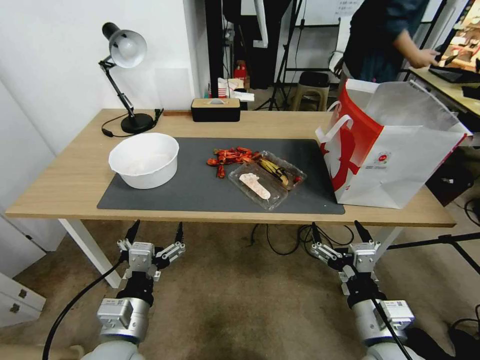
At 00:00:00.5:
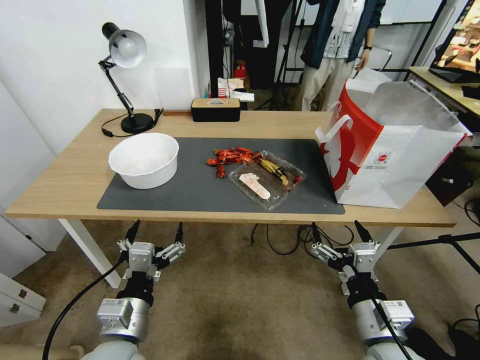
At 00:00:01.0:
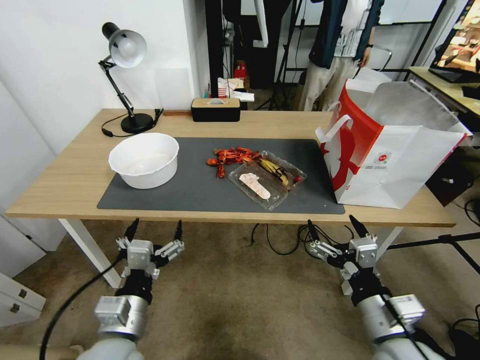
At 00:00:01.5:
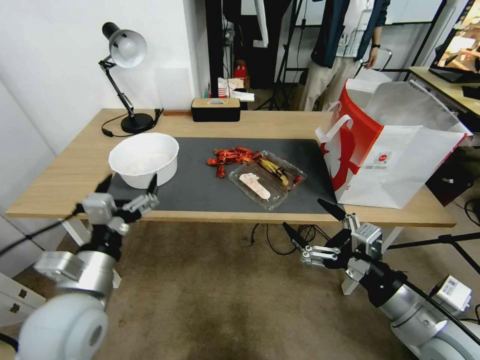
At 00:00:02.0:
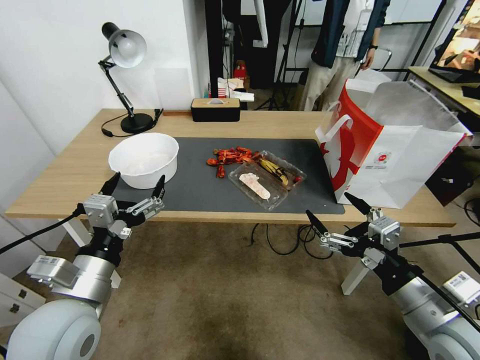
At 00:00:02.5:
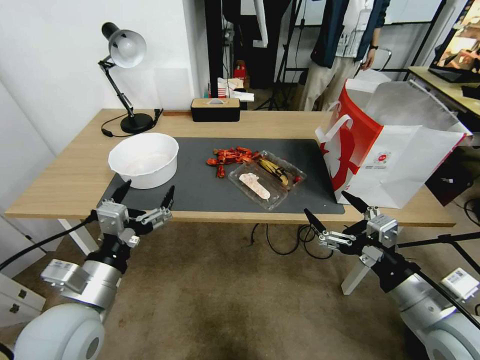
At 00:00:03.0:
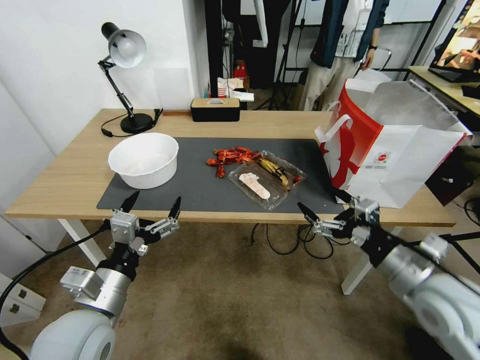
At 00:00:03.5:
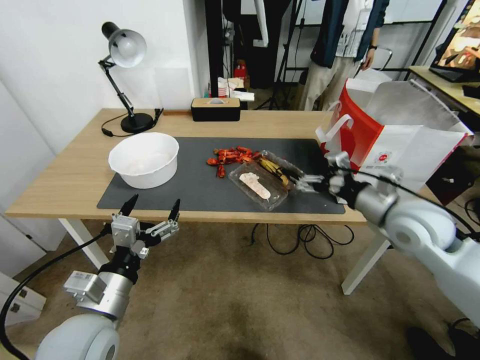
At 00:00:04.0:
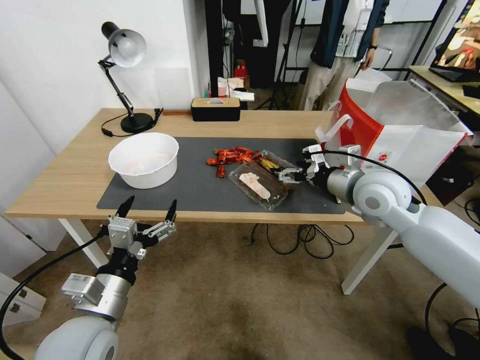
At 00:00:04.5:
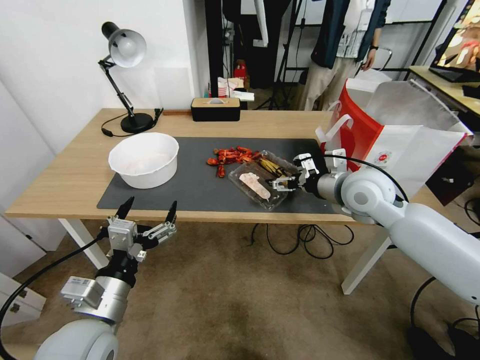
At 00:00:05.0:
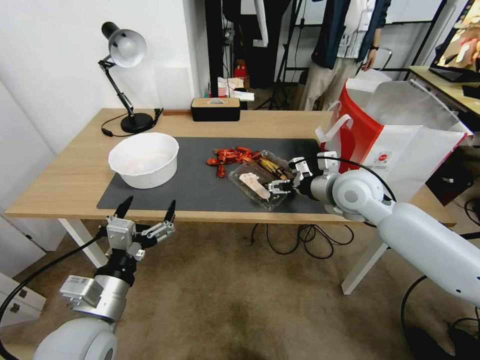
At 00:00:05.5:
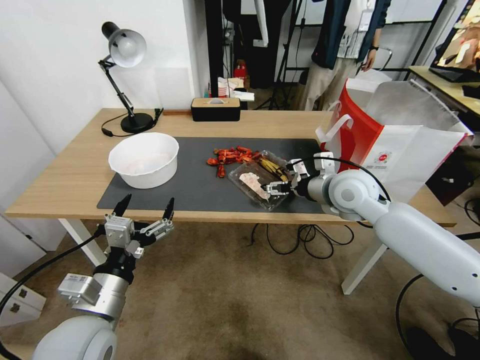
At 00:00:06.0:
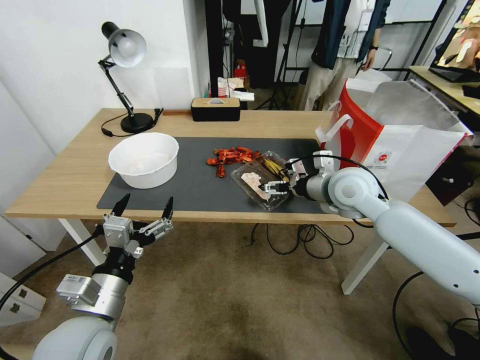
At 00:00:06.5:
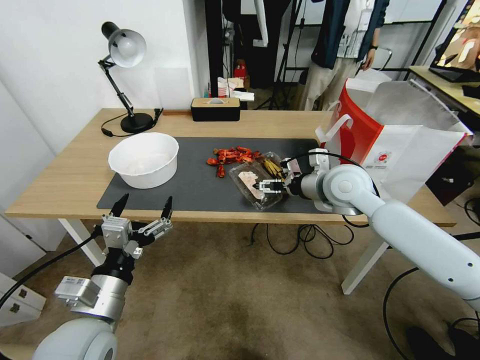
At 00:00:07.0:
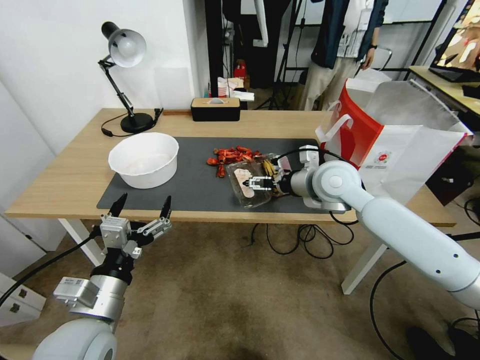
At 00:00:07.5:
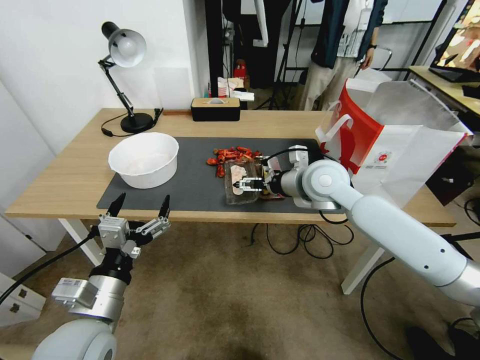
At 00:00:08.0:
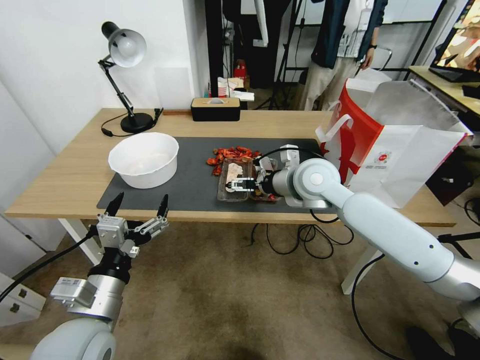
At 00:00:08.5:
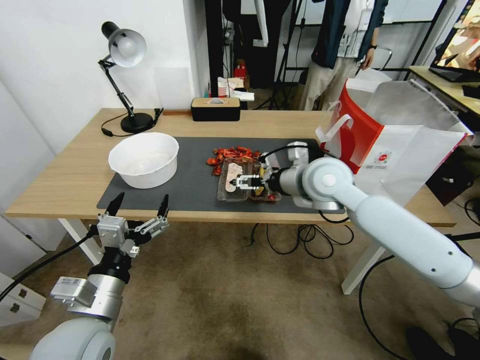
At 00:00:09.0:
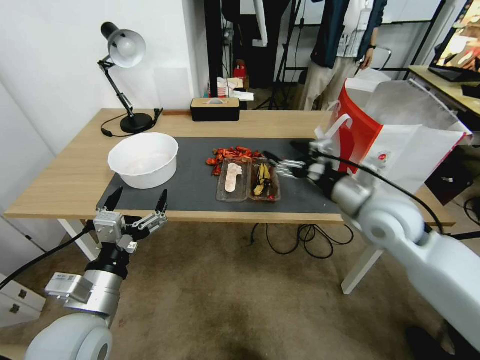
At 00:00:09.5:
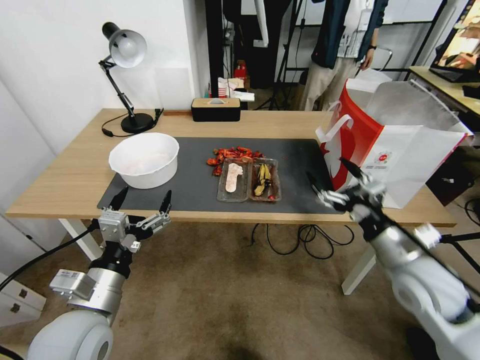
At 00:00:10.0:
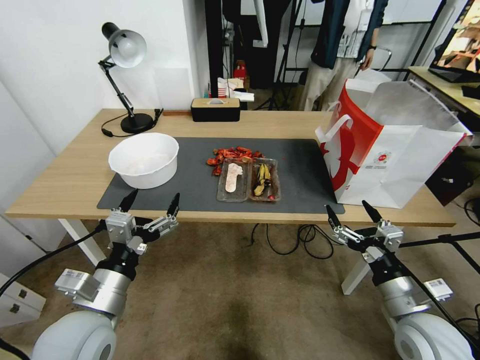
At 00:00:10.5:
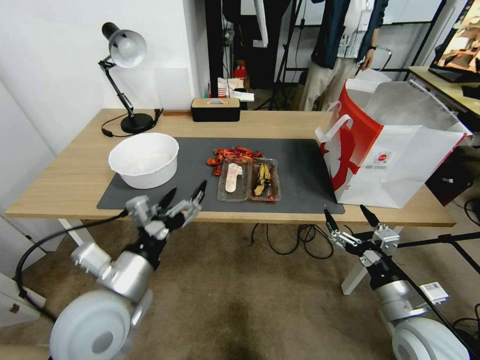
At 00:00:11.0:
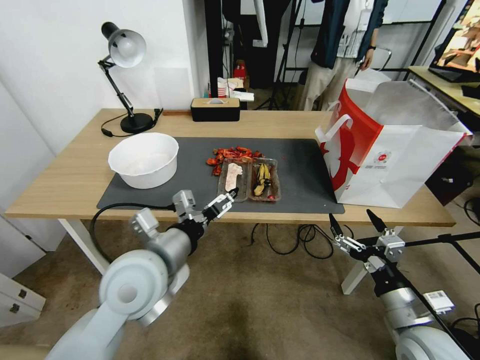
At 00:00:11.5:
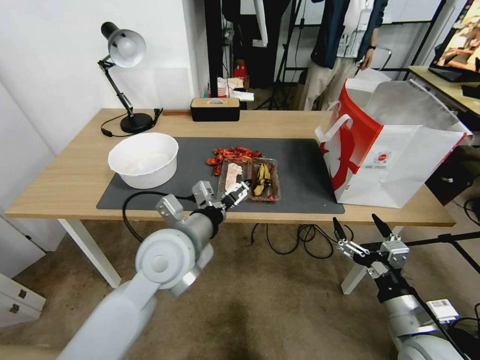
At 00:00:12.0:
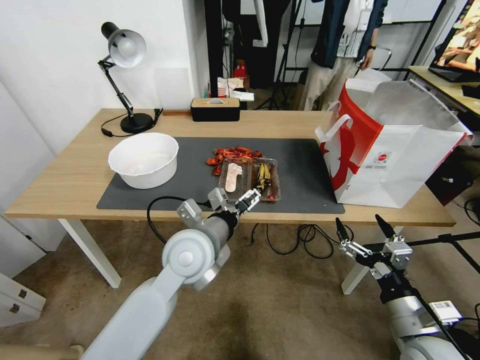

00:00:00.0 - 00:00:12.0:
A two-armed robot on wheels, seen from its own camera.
00:00:02.0 - 00:00:04.0: The right gripper heads forward, covering some 25 cm.
00:00:04.0 - 00:00:06.0: The right gripper moves roughly 5 cm.
00:00:06.0 - 00:00:08.0: The right gripper travels to the left by some 10 cm.
00:00:08.0 - 00:00:10.0: The right gripper shifts approximately 35 cm backward, to the right and downward.
00:00:10.0 - 00:00:12.0: The left gripper shifts roughly 20 cm to the right and forward.

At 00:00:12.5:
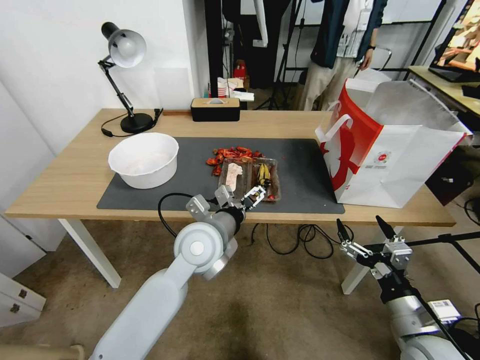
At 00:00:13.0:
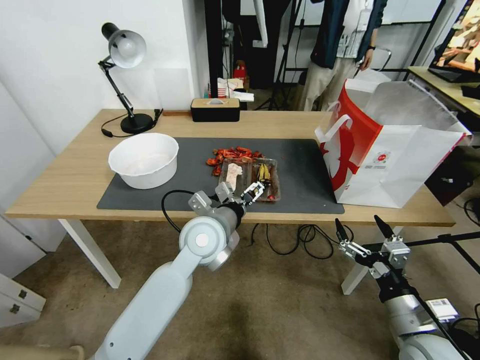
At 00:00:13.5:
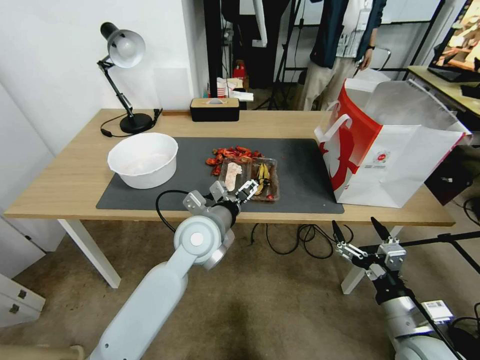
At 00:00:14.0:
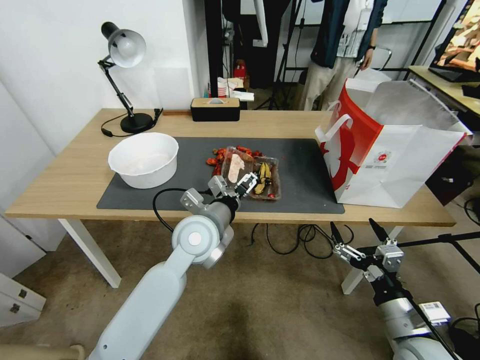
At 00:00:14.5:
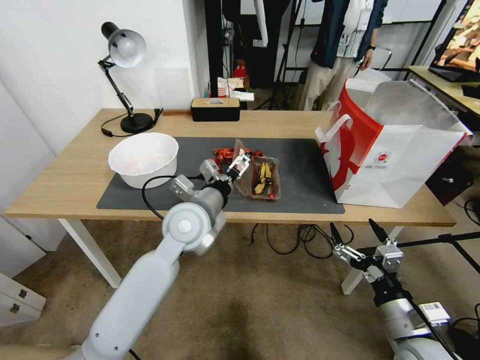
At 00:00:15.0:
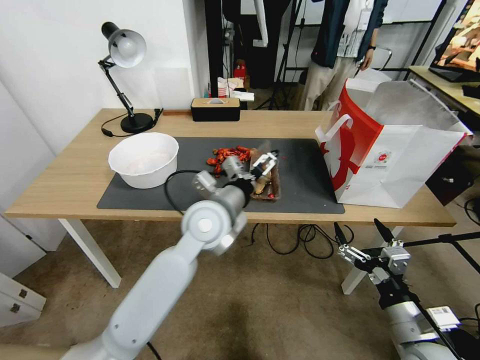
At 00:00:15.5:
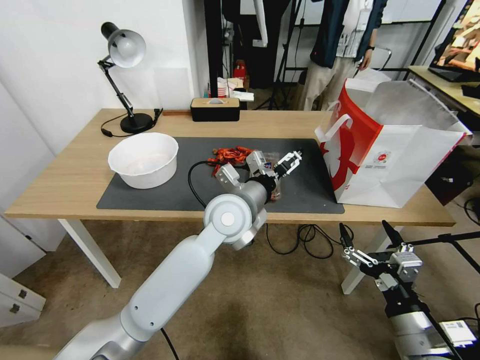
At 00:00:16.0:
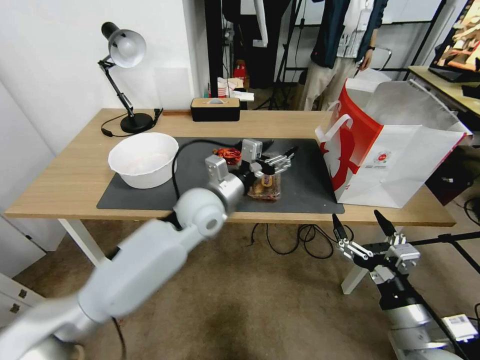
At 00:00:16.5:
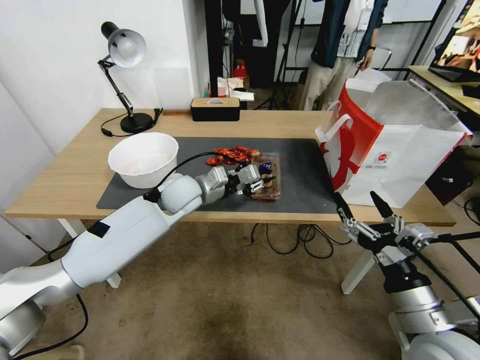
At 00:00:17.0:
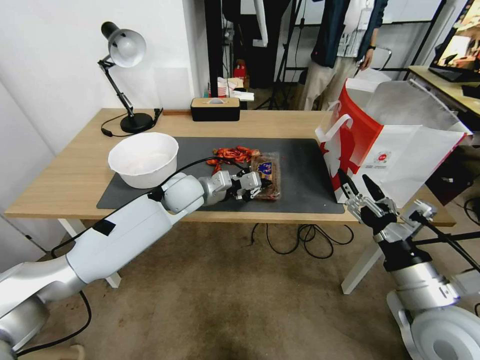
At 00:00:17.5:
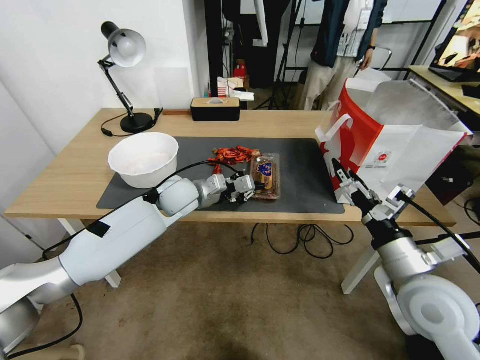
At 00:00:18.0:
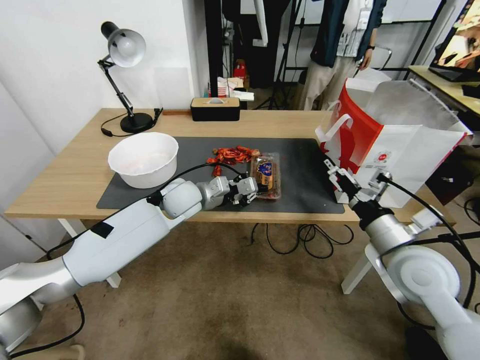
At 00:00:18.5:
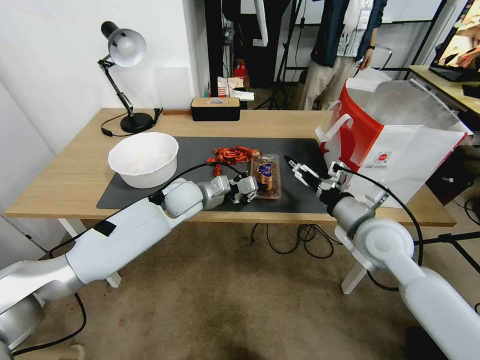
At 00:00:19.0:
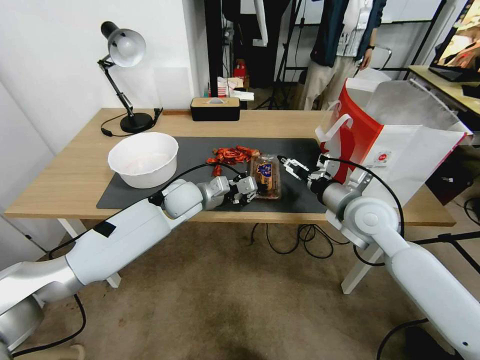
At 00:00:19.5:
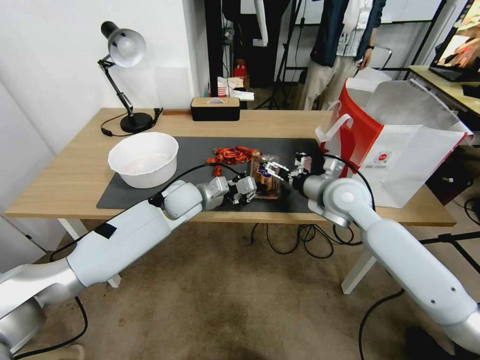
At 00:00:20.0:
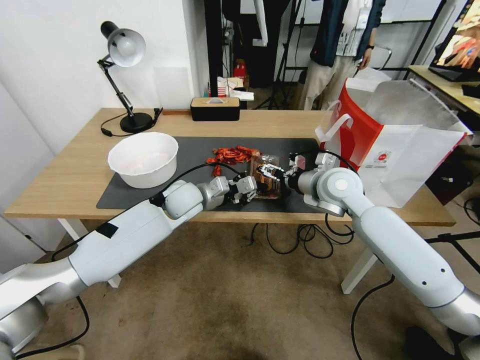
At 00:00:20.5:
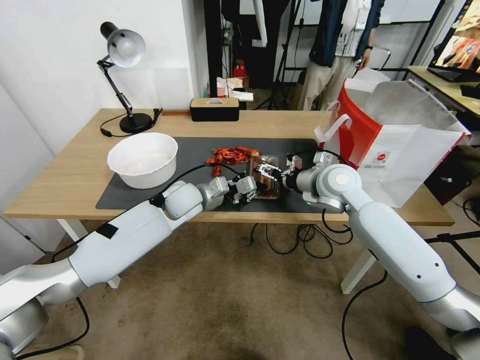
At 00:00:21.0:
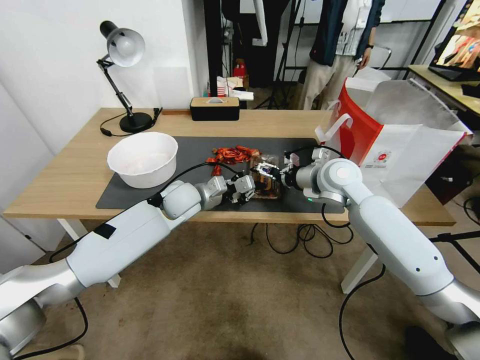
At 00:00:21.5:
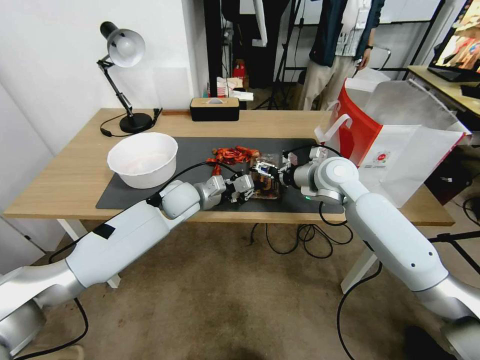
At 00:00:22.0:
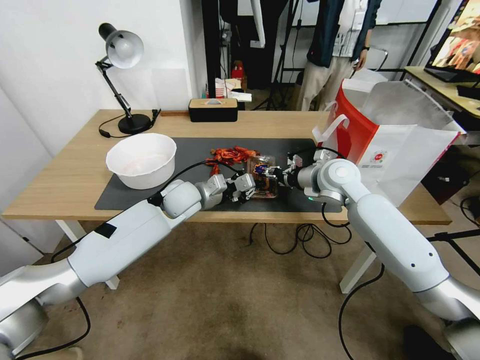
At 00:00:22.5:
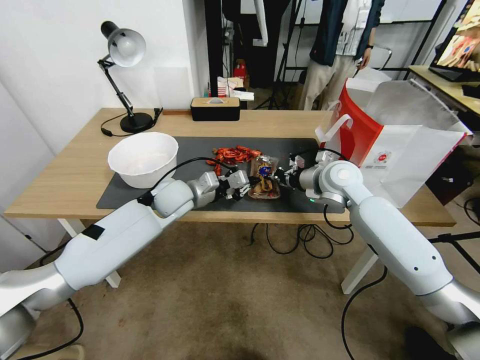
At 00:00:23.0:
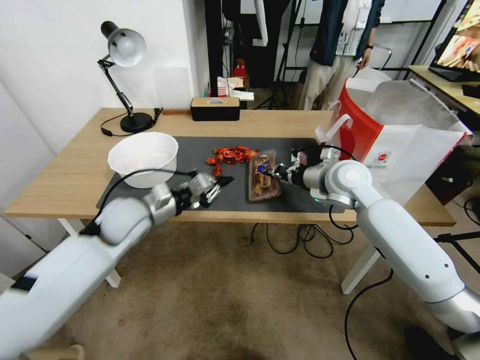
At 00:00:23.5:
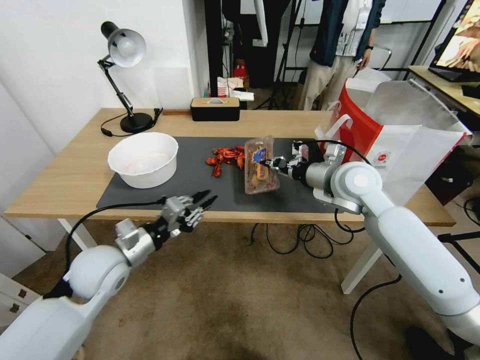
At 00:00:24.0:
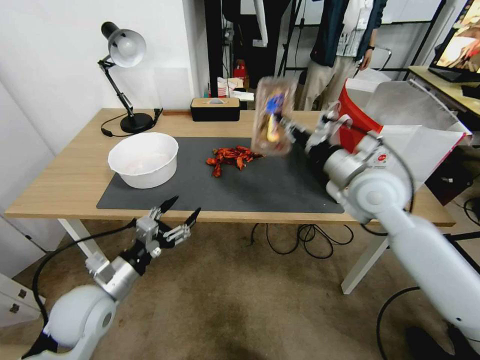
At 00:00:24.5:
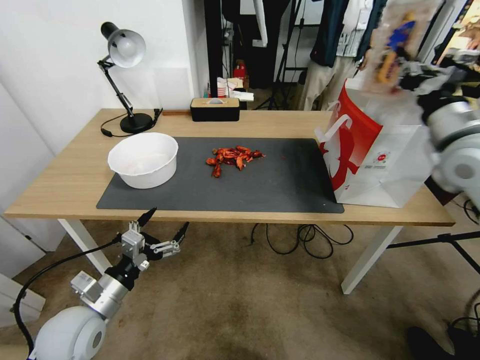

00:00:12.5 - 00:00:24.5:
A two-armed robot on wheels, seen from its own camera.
00:00:12.5 - 00:00:14.5: The grippers make only small movements.
00:00:14.5 - 00:00:16.5: The left gripper shifts approximately 10 cm forward, moves about 10 cm to the right and comes back, and closes up, while the right gripper moves upward, about 10 cm.
00:00:16.5 - 00:00:18.5: The right gripper moves forward, about 20 cm.
00:00:18.5 - 00:00:20.5: The right gripper moves forward and to the left, some 15 cm.
00:00:20.5 - 00:00:22.5: The right gripper closes up.
00:00:22.5 - 00:00:24.5: The right gripper goes about 25 cm upward, to the right and backward. The left gripper shifts approximately 30 cm backward and to the left, and opens up.

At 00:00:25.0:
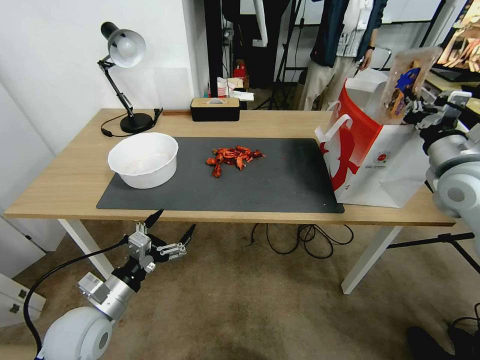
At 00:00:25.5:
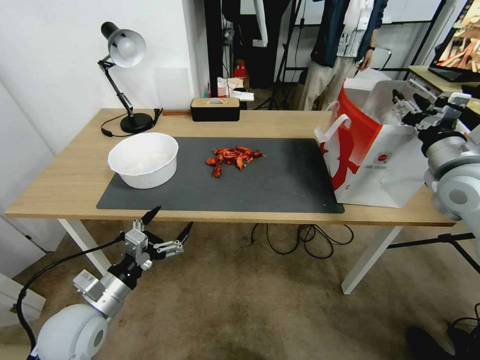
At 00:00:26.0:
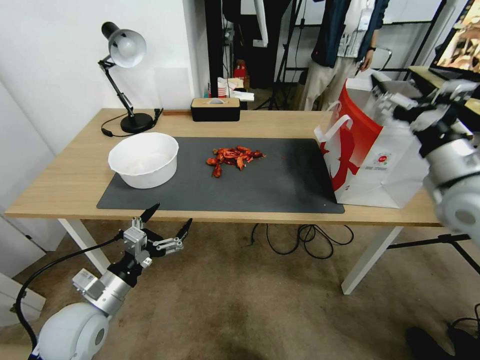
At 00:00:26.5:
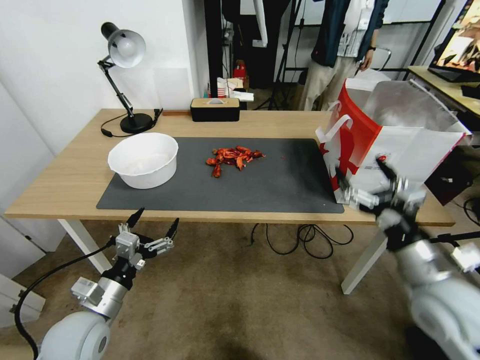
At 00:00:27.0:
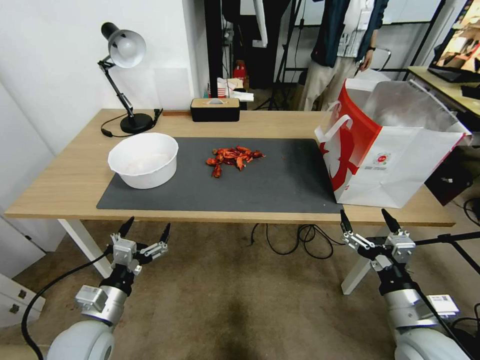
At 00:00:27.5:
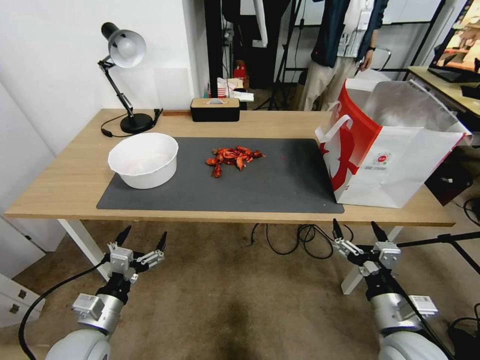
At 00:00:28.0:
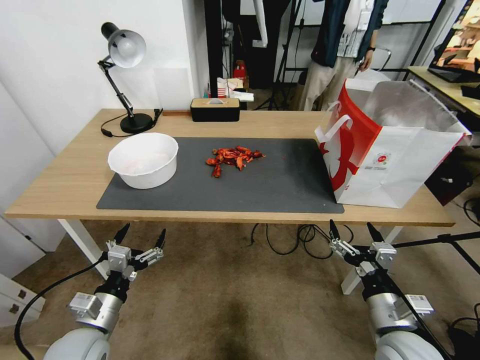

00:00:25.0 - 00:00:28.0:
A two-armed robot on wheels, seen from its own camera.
00:00:25.0 - 00:00:26.5: The right gripper shifts some 20 cm backward, downward and to the left, and opens its fingers.
00:00:26.5 - 00:00:28.0: The right gripper shifts about 10 cm downward and backward.
